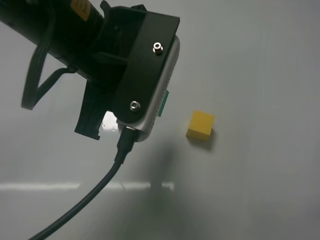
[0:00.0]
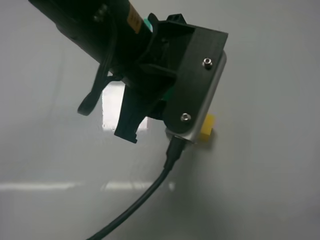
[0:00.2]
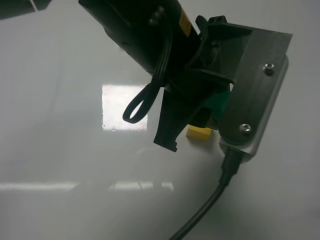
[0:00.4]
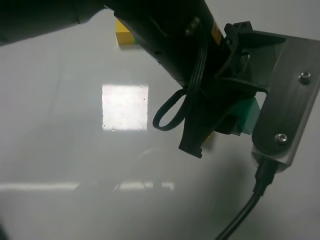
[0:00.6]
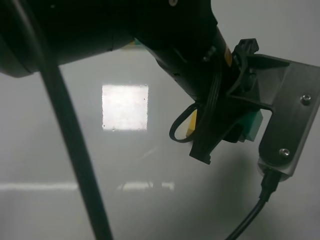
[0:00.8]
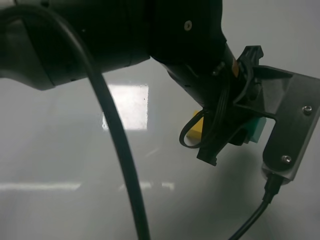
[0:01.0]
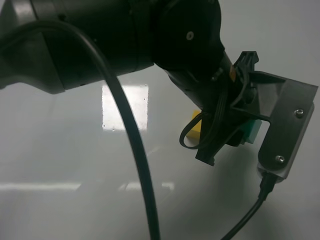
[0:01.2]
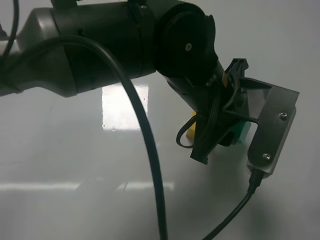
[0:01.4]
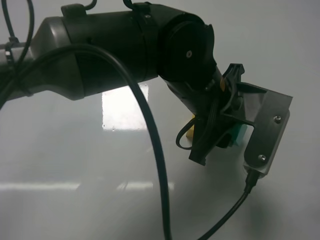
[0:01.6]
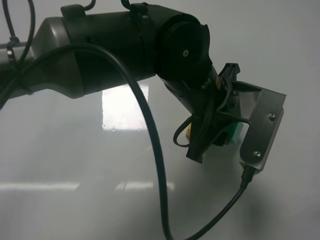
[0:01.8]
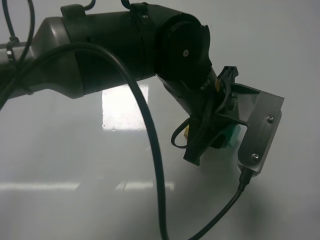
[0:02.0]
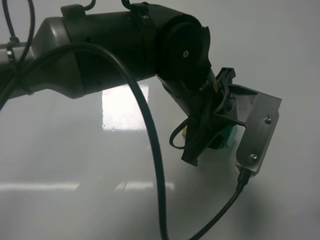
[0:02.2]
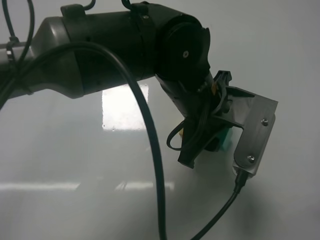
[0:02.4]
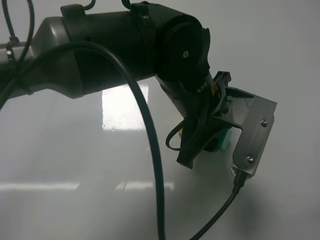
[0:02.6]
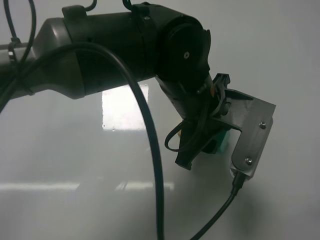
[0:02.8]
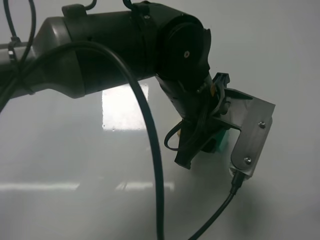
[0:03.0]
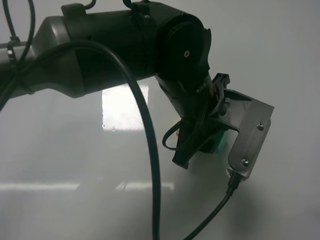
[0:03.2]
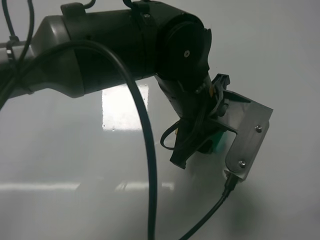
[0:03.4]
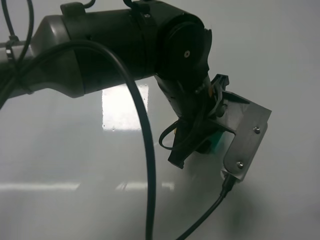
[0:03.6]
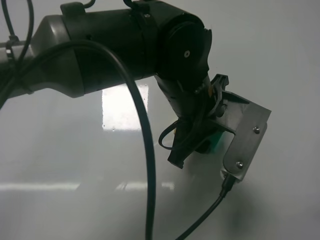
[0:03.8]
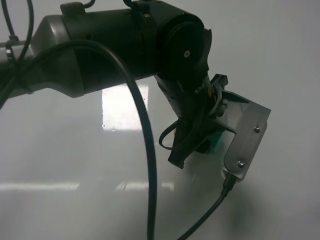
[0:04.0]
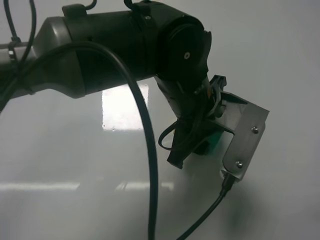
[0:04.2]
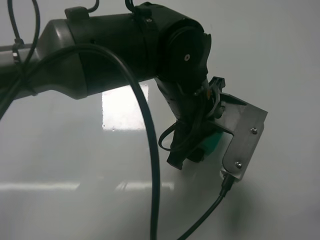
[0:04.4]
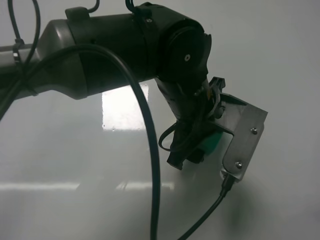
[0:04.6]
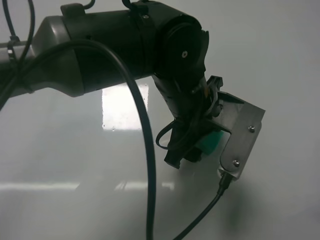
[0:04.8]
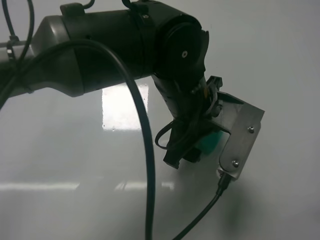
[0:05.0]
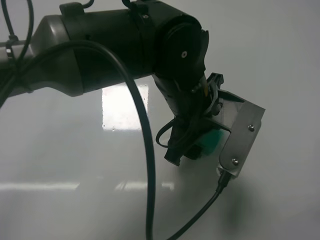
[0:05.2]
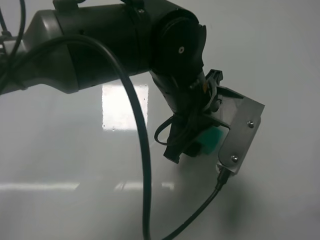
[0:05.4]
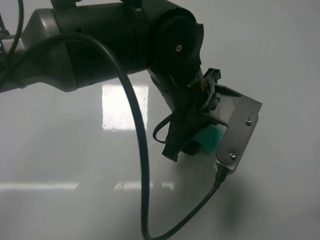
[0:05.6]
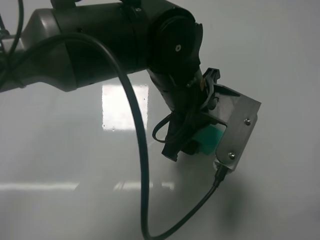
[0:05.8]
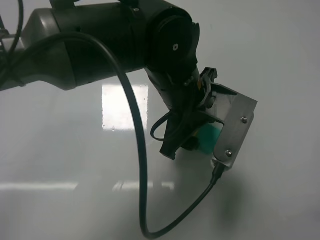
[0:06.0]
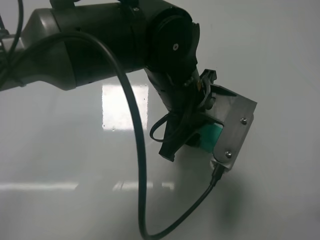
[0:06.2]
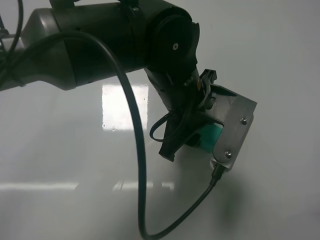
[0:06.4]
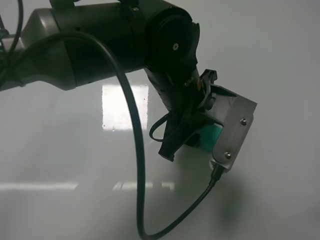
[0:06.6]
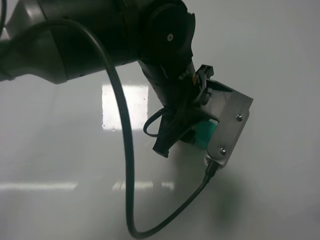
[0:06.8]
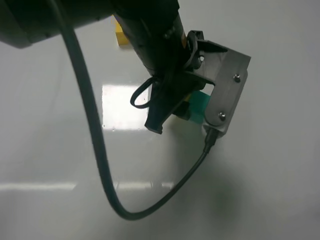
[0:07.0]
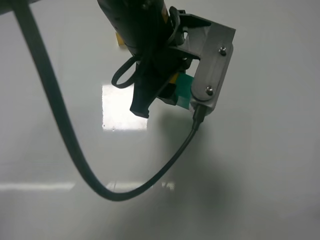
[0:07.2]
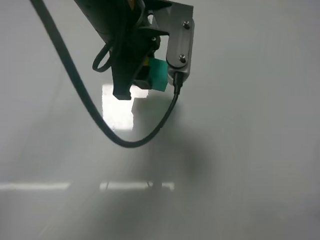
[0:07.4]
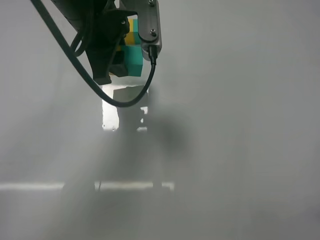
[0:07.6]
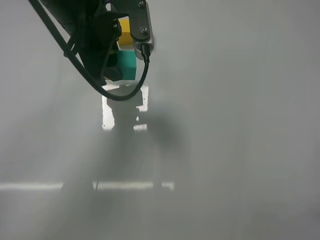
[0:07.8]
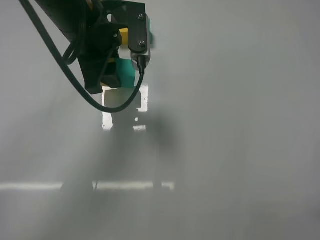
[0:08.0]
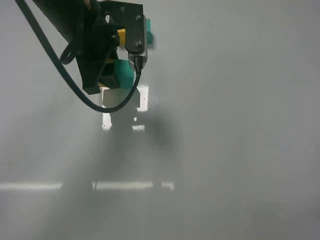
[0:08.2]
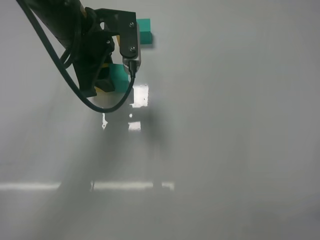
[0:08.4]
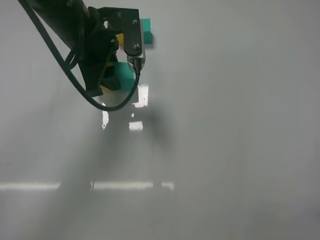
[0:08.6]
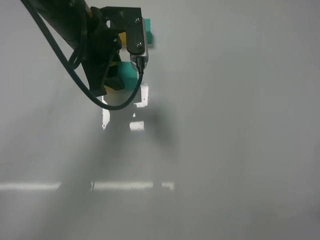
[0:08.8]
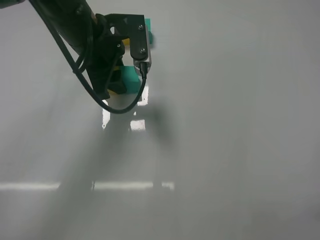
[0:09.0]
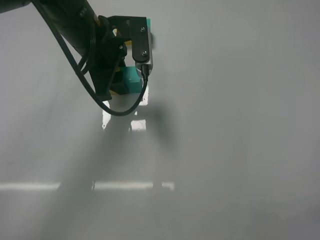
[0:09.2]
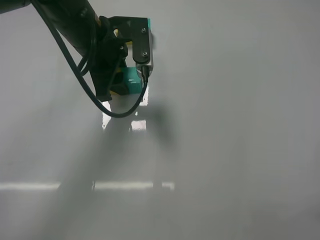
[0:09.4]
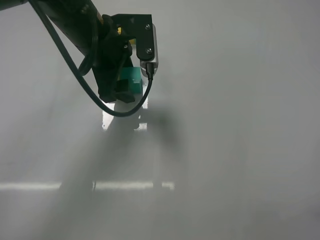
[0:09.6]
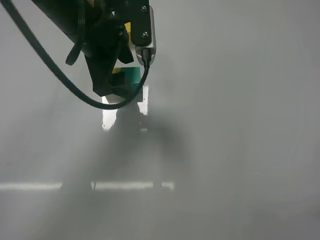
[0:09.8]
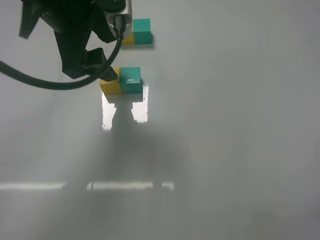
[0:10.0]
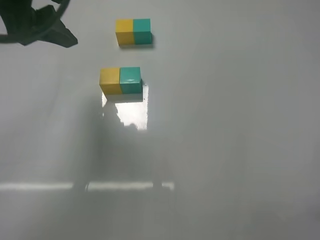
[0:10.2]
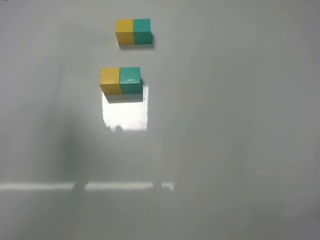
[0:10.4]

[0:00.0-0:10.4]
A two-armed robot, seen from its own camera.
Task of the whole recording: According to the building block template in front, assemble the scattered blocks together.
Step, 0:00.0 to 0:04.4: Put the green cube on the right of the yellow cube with the left gripper.
Step, 0:04.6 to 0:09.6: Put the yellow cube and green cube in the center of the table with the left gripper.
0:00.0 to 0:01.4: The left gripper goes approximately 15 cm to the right and downward.
0:03.0 to 0:04.4: The left gripper opens its fingers.
0:04.4 to 0:06.0: The left gripper closes up.
0:06.0 to 0:07.4: The left gripper shifts about 15 cm to the left and upward, and closes its fingers.
0:07.4 to 0:09.0: The left gripper changes place by some 5 cm.
0:09.0 to 0:10.4: The left gripper is displaced upward, backward and to the left by approximately 25 cm, and opens up.

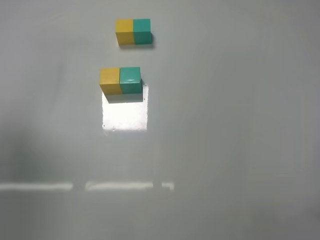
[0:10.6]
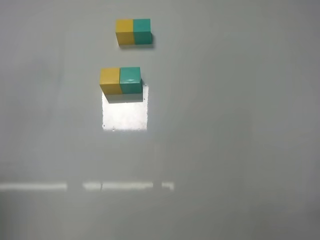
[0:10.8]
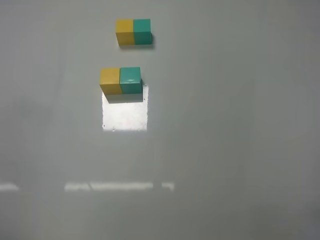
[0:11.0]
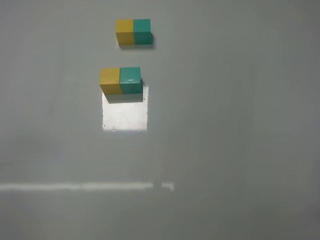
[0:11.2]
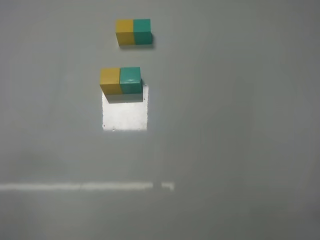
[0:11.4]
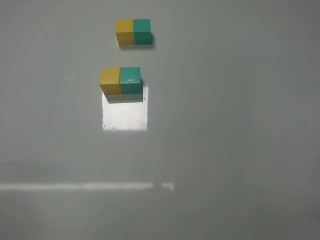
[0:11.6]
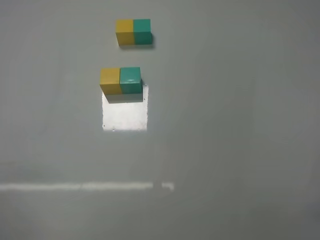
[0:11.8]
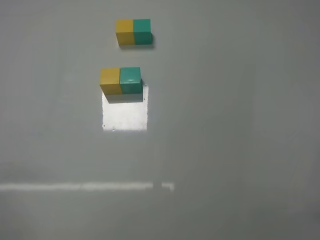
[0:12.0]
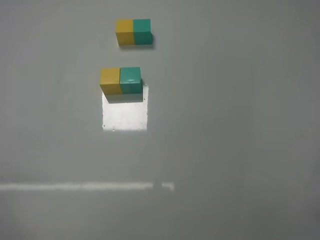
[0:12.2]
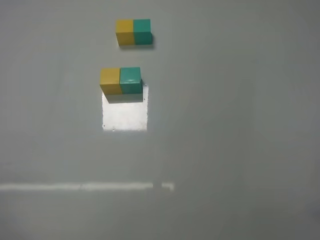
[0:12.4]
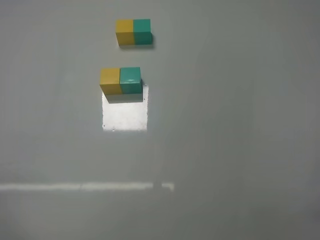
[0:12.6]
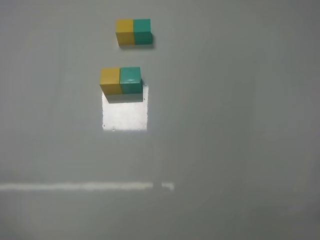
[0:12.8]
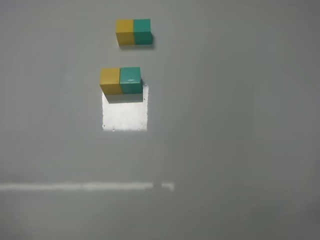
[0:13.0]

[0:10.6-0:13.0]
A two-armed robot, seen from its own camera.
Task of the whole recording: According to the building block template in front, assemble the scattered blocks together.
0:10.6 to 0:11.8: The left gripper travels downward and backward by approximately 30 cm.
